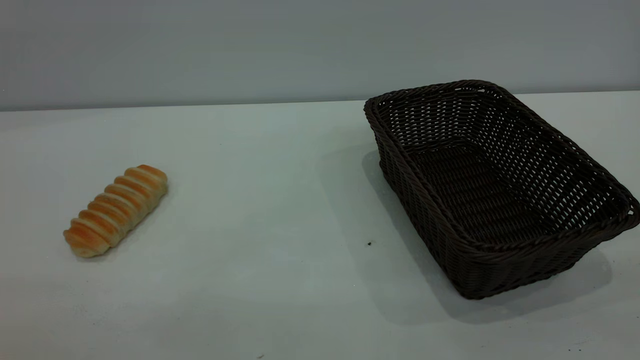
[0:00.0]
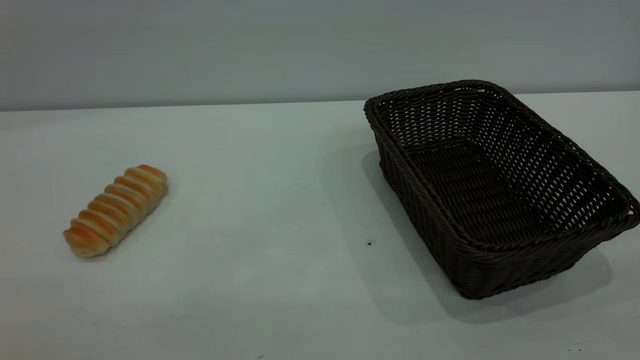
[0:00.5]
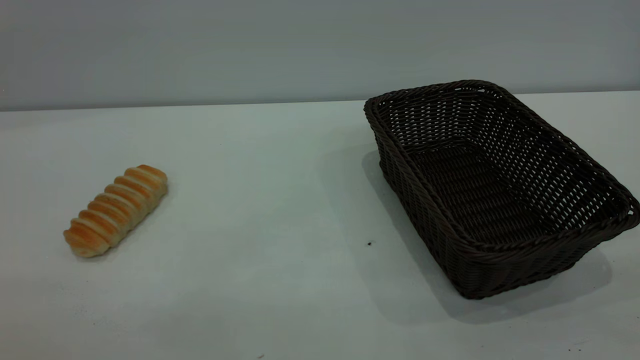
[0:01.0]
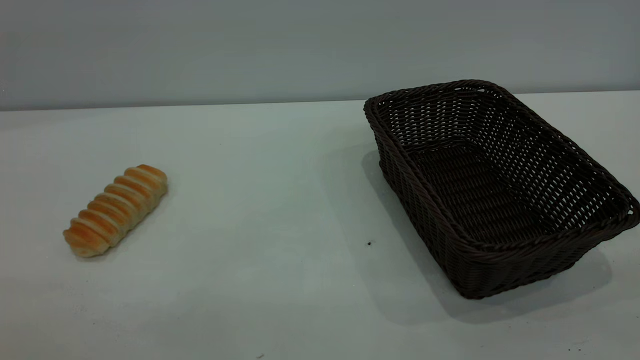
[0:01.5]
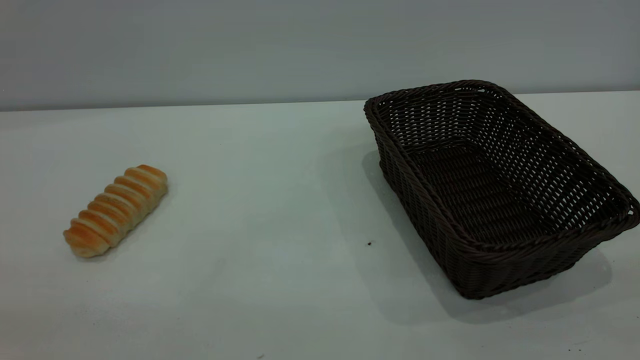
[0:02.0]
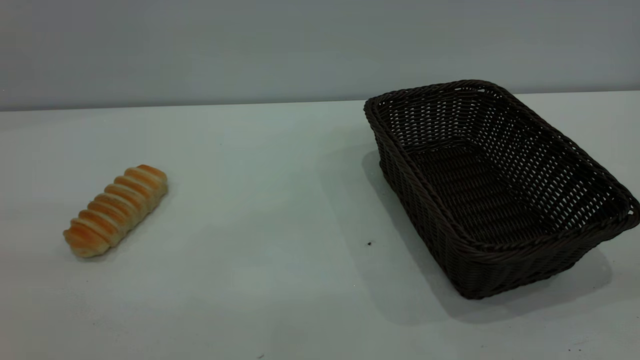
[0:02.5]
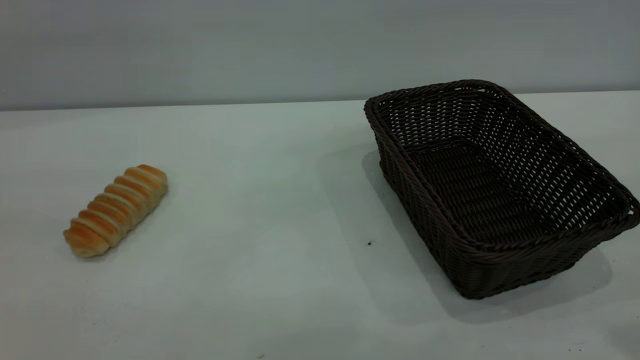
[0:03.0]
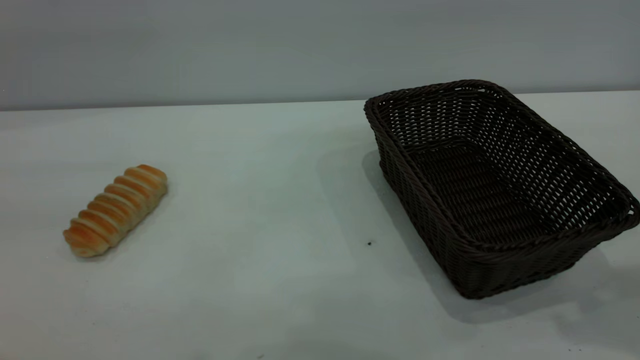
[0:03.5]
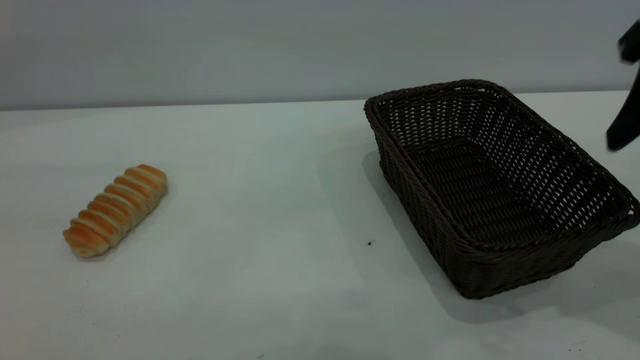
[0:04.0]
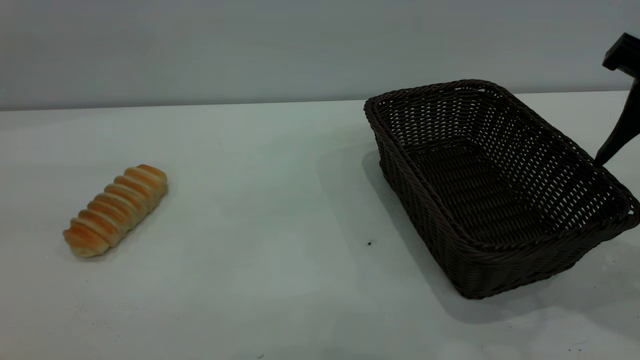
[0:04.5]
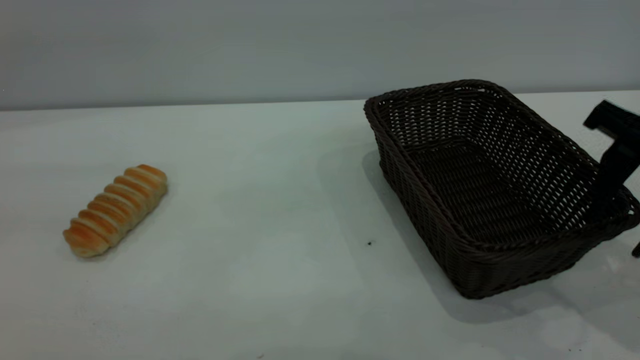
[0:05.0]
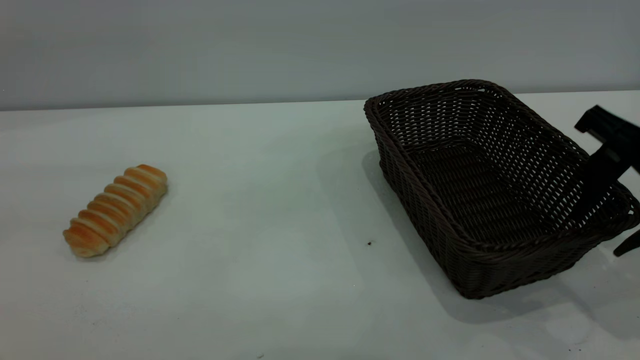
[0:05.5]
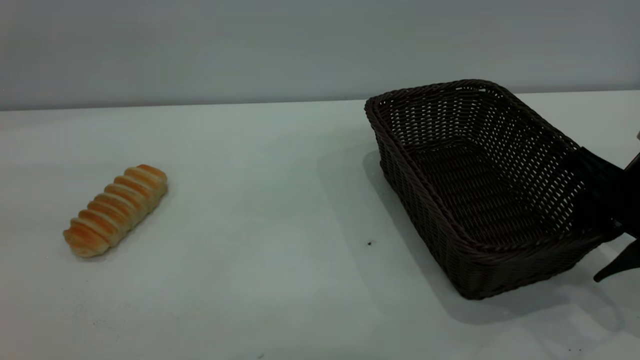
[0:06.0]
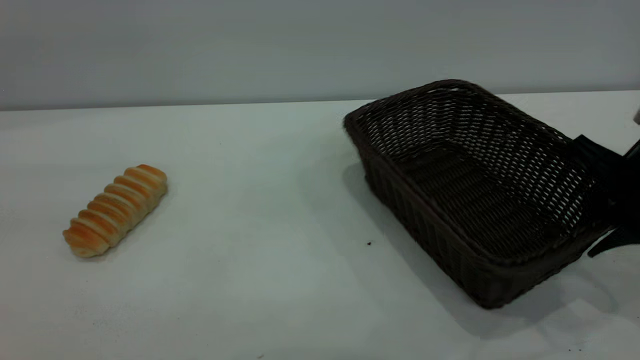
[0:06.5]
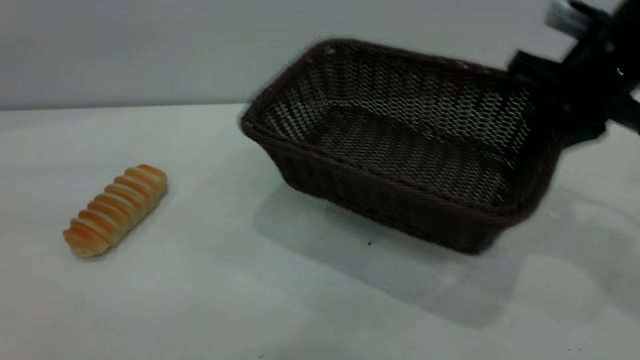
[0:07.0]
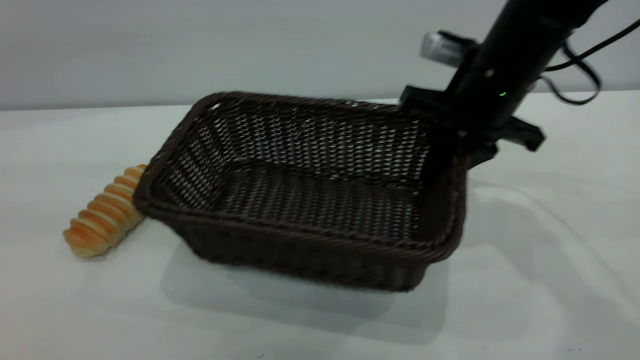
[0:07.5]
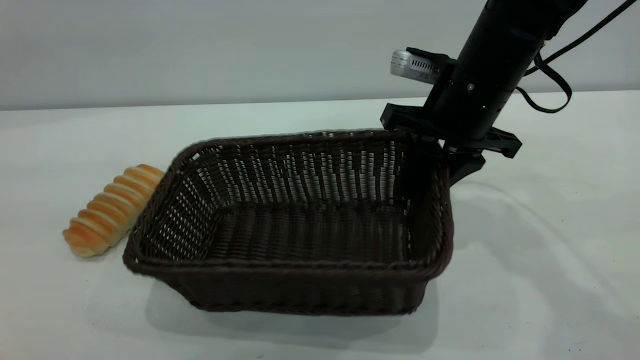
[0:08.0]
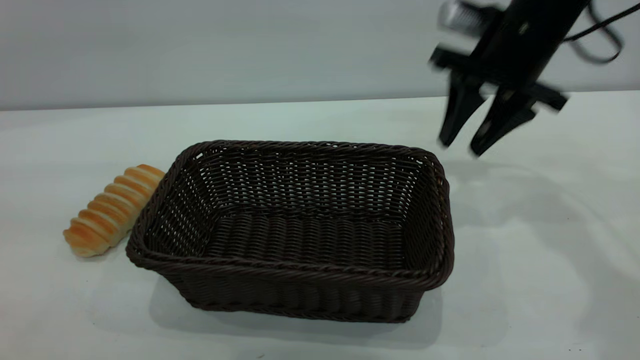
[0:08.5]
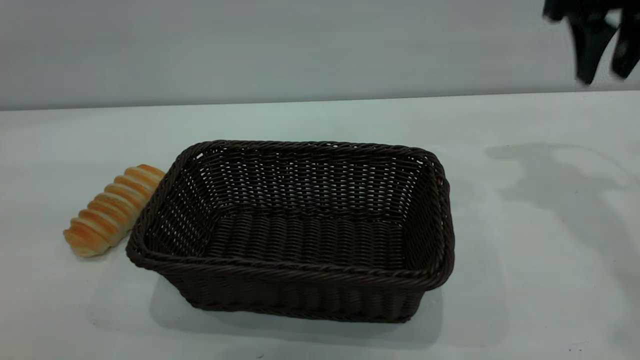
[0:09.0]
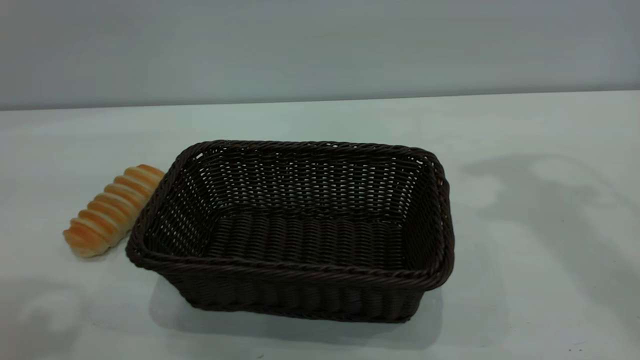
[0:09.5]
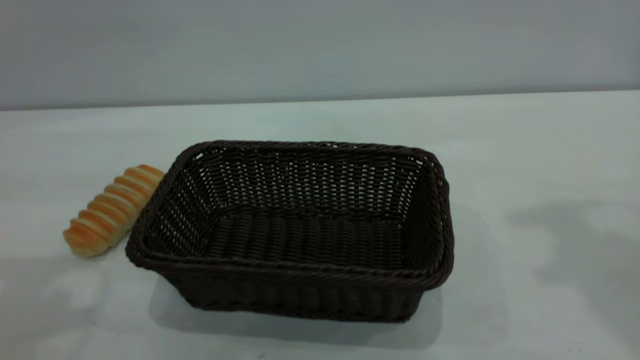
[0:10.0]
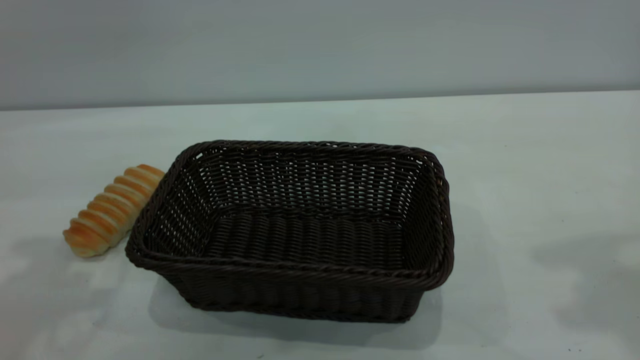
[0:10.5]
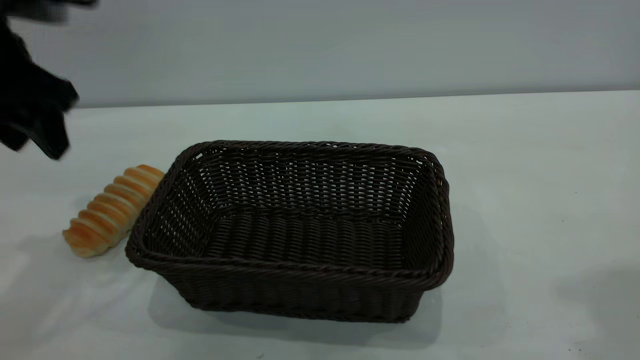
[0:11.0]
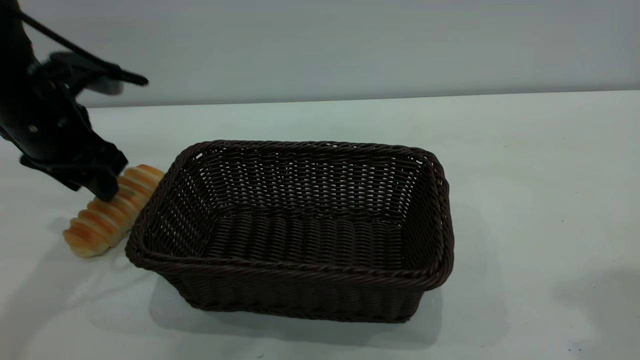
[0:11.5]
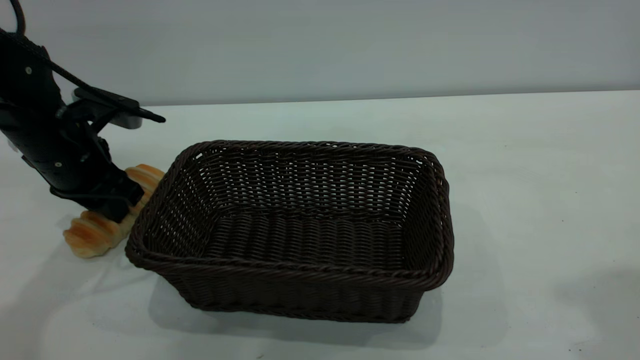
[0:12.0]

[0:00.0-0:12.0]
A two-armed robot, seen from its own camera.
Task of the whole recording: One hand grasps the black basket and places it in the middle of the table, while the other hand picks up the long bread and puts it into the black basket.
Step, 0:00.0 to 0:08.0: Move the basket to the center of view.
0:02.0 to 0:04.0: The right gripper travels forward by approximately 30 cm.
0:04.0 to 0:06.0: The right gripper moves downward, approximately 15 cm.
0:06.0 to 0:08.0: The right gripper shifts approximately 15 cm to the left and forward, and closes, then reopens.
0:08.0 to 0:10.0: The left gripper moves forward, approximately 10 cm, while the right gripper travels upward and to the right by some 25 cm.
0:10.0 to 0:12.0: The right gripper goes roughly 10 cm backward and upward, while the left gripper travels downward and forward by approximately 25 cm, and closes up.

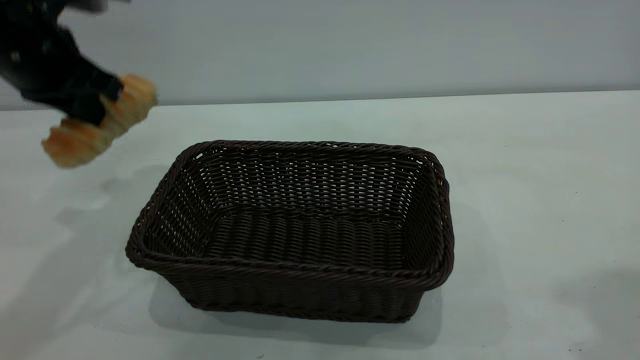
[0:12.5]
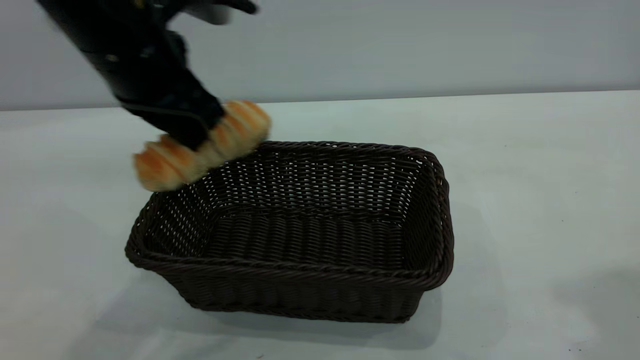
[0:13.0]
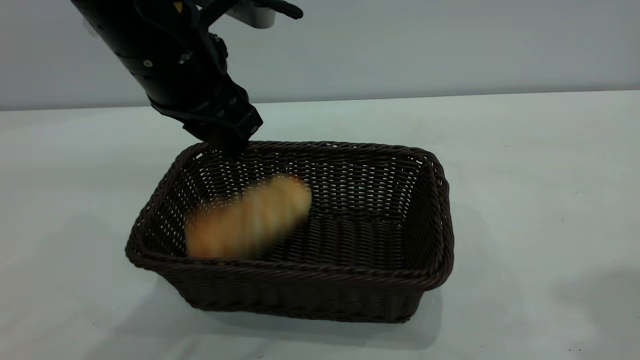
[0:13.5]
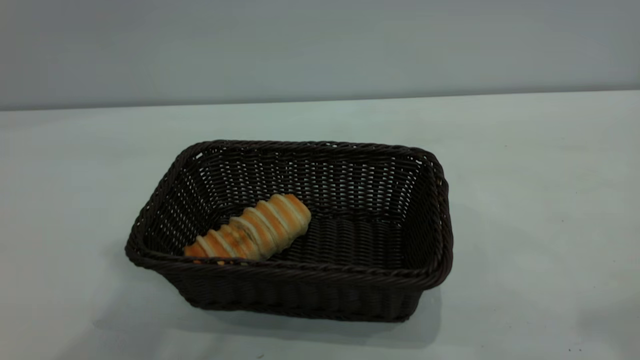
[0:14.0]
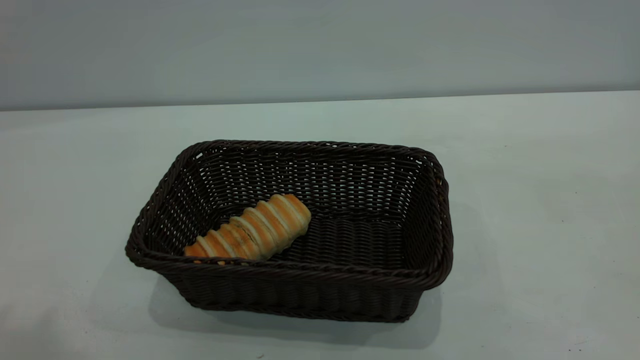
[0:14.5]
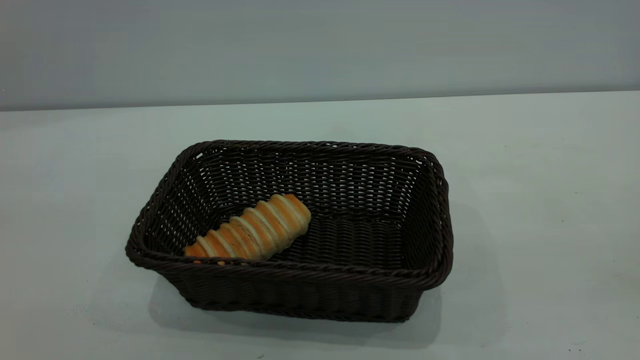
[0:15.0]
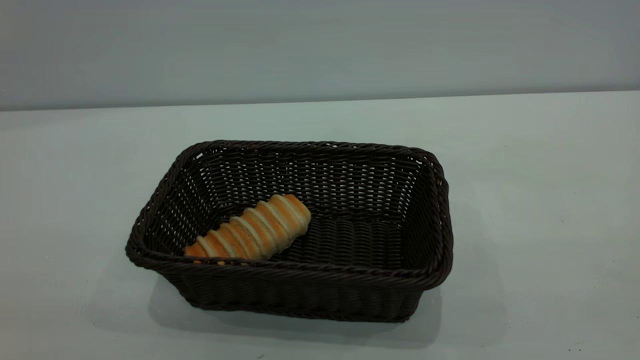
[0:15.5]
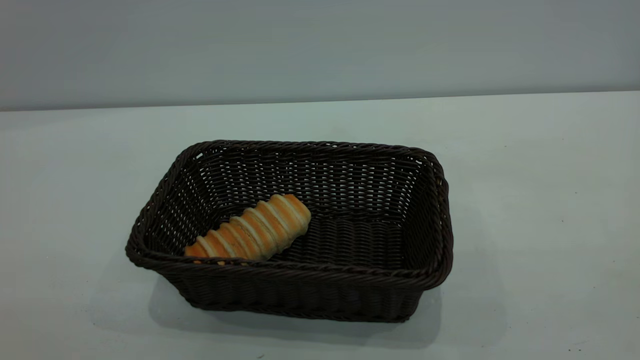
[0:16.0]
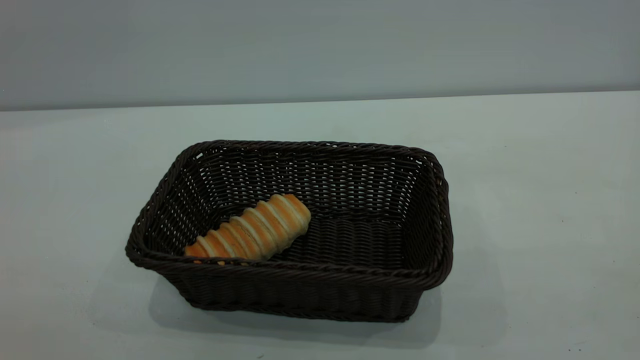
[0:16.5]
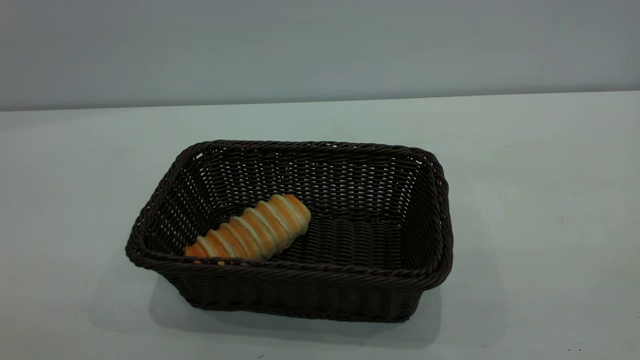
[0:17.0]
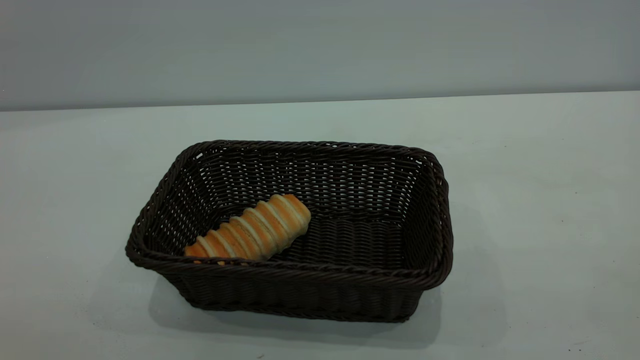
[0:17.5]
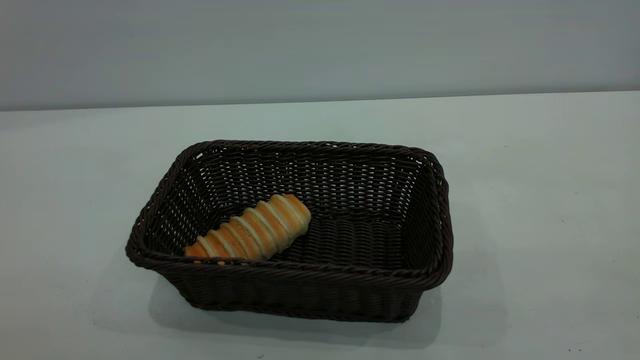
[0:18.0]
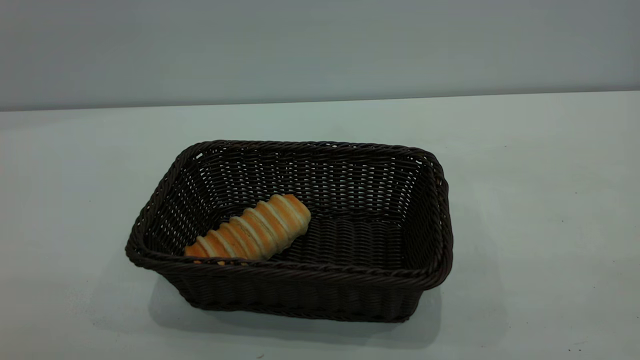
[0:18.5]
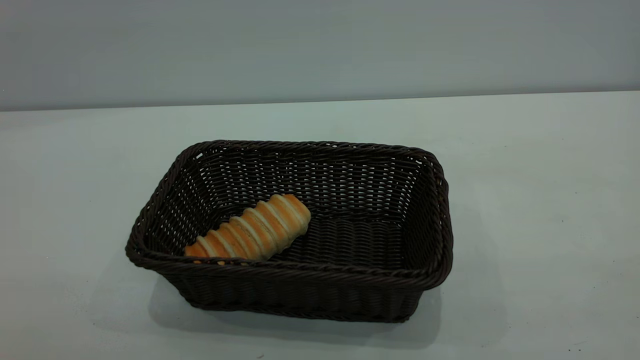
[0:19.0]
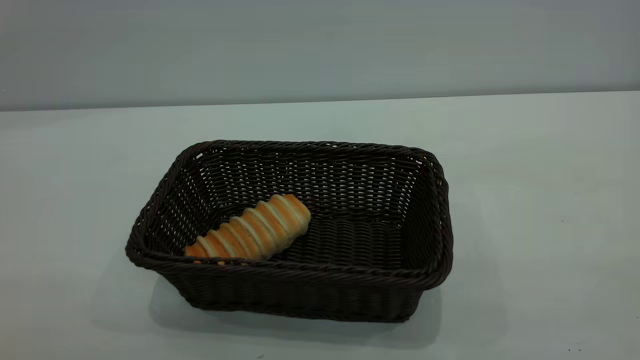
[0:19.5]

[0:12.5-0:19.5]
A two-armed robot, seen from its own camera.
Task of the whole recording: One hand grasps the black basket and places it in the middle of the table, while the other hand picks up the long bread and puts it into the black basket.
Step, 0:13.0 to 0:13.5: place the bread into the basket.
0:12.5 to 0:14.5: The right gripper heads backward, covering about 10 cm, while the left gripper heads upward and backward, covering roughly 35 cm, and opens its fingers.
